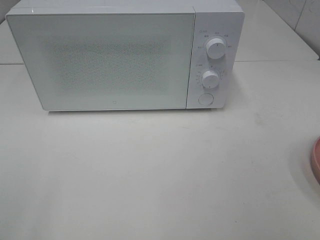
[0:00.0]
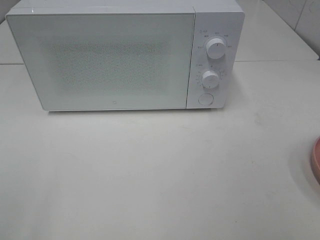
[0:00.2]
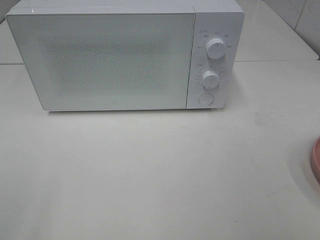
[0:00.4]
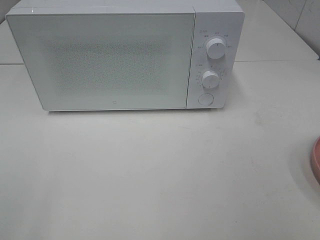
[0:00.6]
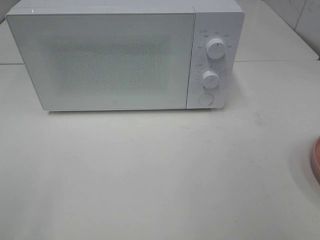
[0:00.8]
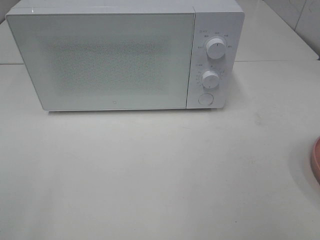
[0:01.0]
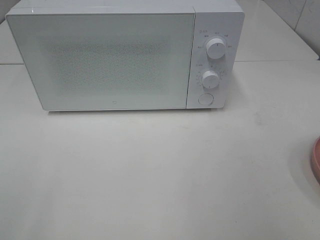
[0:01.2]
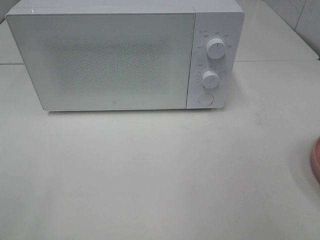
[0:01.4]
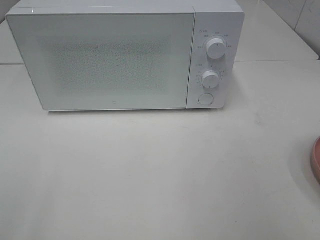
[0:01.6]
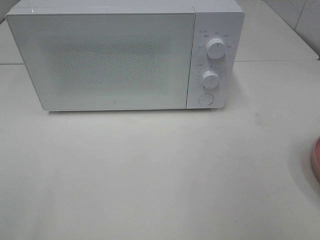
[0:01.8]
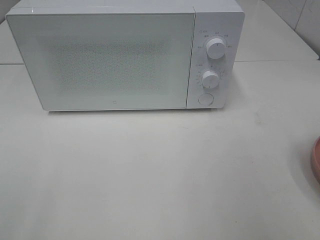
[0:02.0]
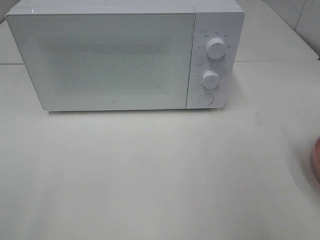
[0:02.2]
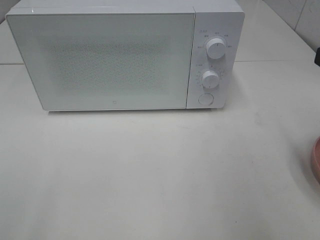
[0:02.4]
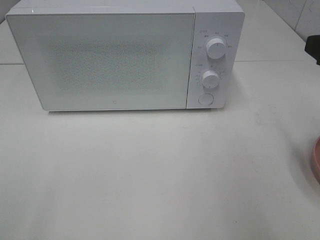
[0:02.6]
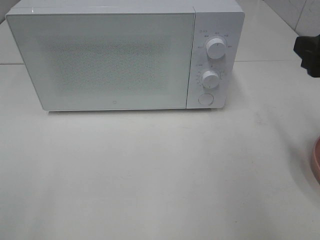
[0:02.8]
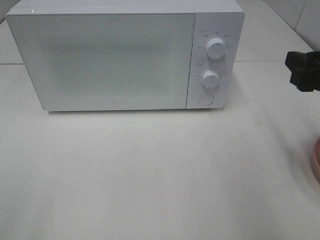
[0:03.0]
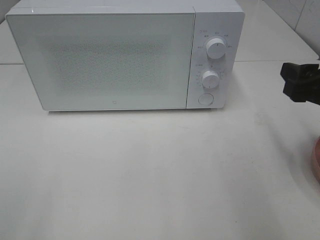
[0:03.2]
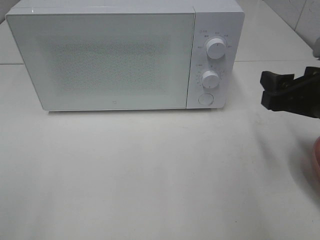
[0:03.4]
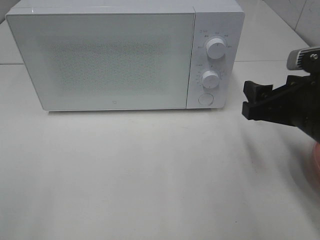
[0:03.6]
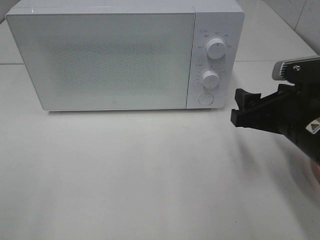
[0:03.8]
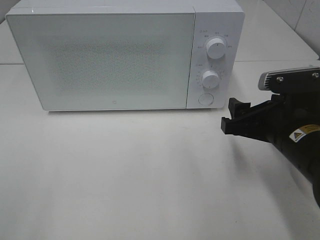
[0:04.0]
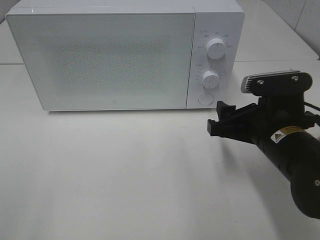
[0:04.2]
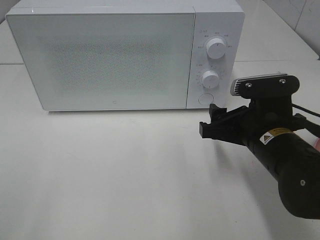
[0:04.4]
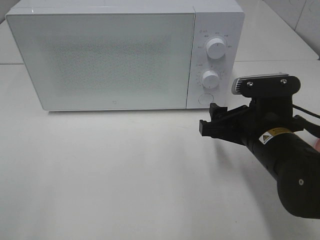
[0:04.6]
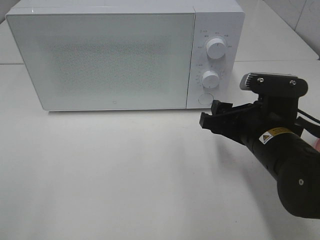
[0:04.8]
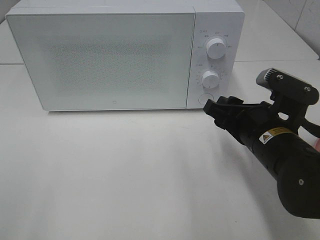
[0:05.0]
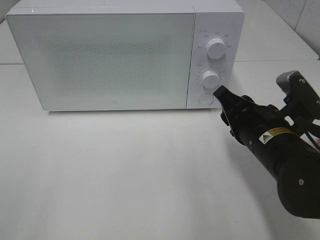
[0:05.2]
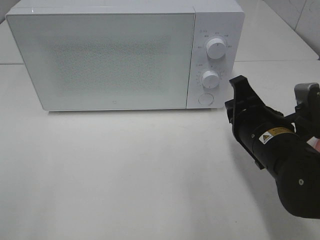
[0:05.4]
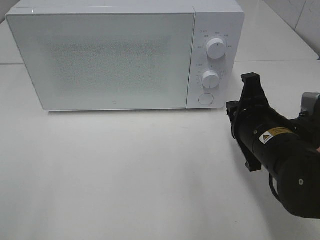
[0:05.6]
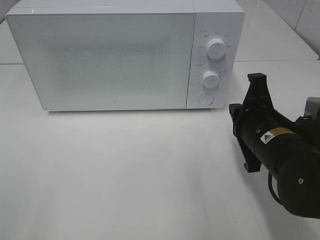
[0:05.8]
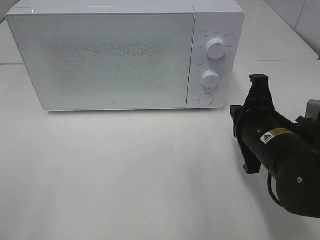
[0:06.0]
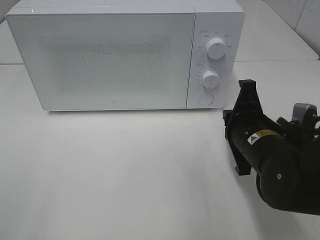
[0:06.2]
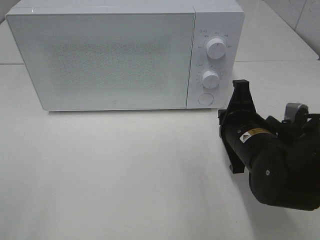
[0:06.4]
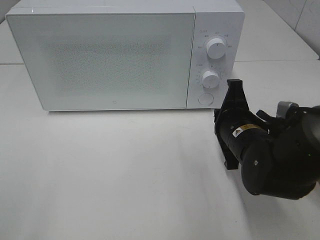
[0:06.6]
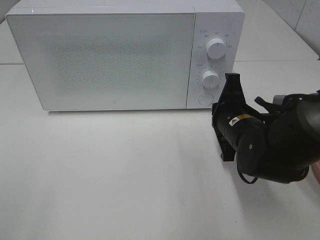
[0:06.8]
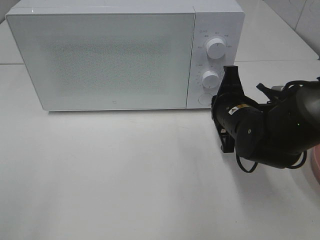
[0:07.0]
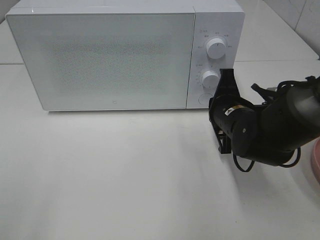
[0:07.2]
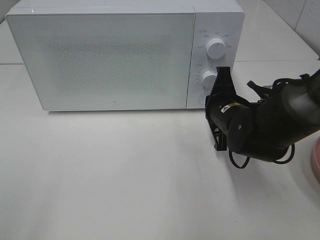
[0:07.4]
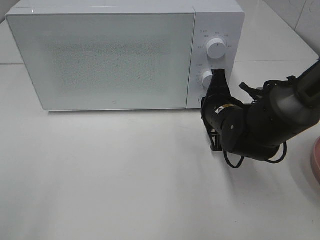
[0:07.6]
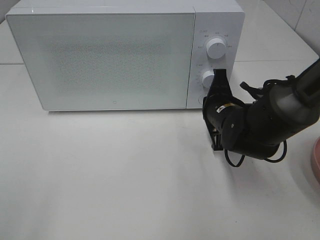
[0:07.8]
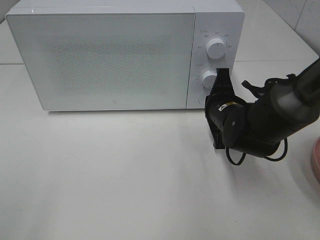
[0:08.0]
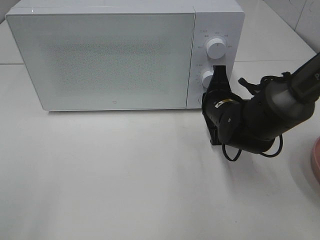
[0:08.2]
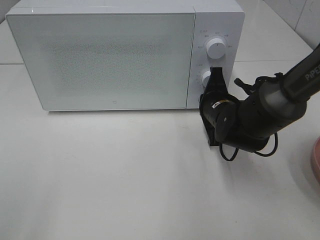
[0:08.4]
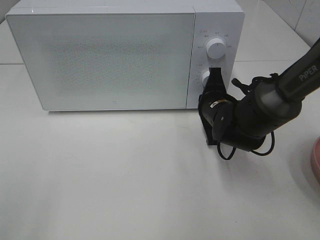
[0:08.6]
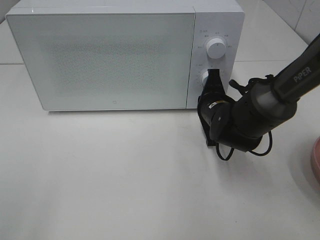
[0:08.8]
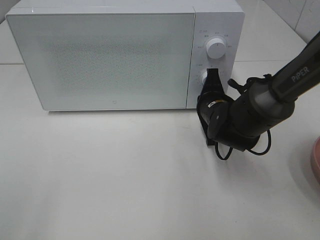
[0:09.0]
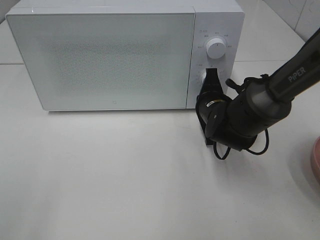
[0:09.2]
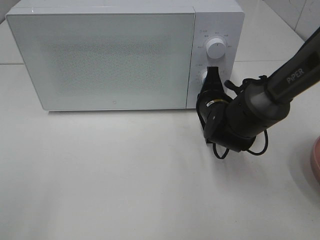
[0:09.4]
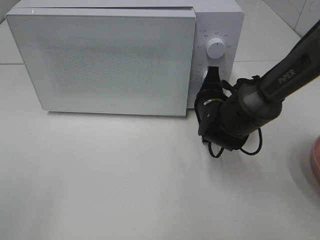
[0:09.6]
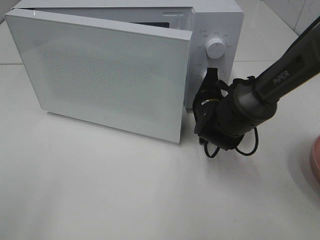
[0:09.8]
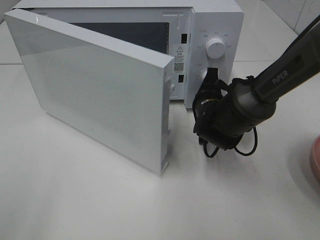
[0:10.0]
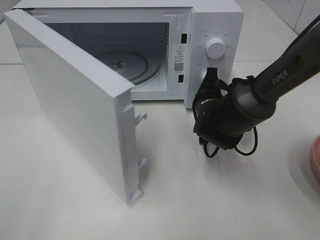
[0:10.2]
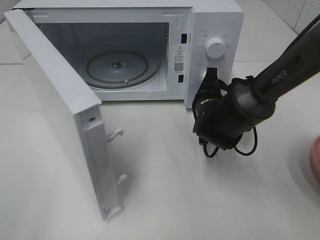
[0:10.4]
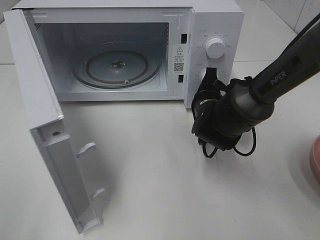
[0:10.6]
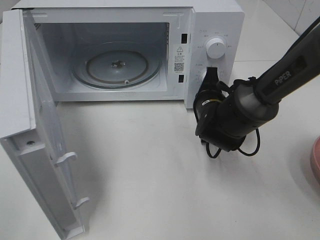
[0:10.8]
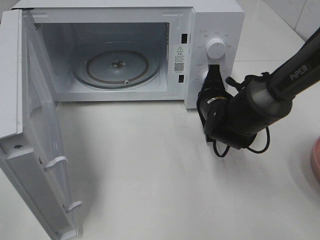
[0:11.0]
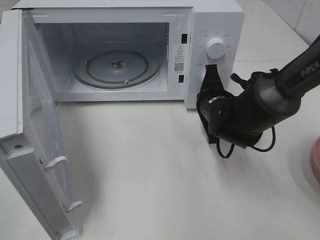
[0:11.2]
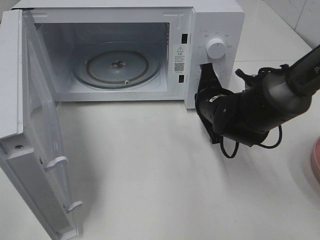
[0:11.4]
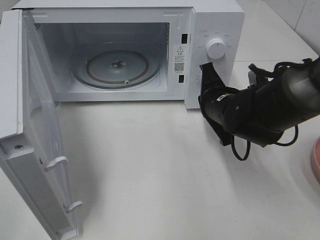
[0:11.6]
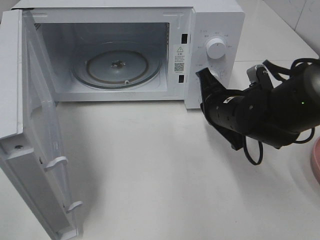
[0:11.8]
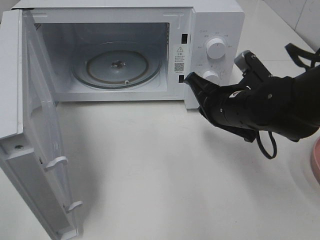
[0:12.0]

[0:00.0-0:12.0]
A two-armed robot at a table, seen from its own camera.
Task of the whole recording: Heat the burger.
Step, 0:00.0 to 0:11.2: Right hand: press the switch.
0:01.6 to 0:03.0: The right gripper heads forward and downward, covering some 15 cm.
0:03.0 to 0:04.4: The right gripper moves to the left and downward, some 15 cm.
0:04.4 to 0:06.0: The right gripper closes.
0:06.0 to 0:07.6: The right gripper is displaced forward by roughly 10 cm.
0:07.6 to 0:09.0: The grippers stay close to where they were, moving slightly.
0:10.4 to 0:12.0: The right gripper goes about 10 cm backward and upward.

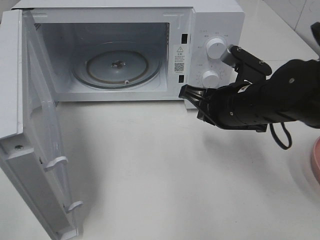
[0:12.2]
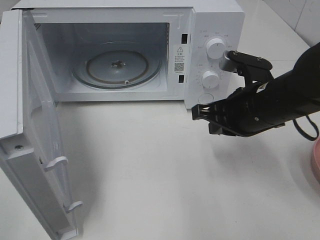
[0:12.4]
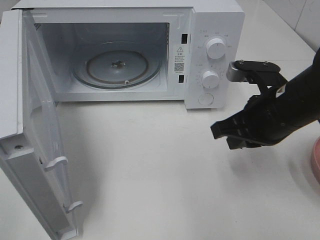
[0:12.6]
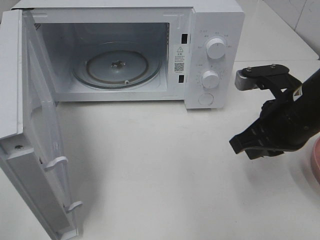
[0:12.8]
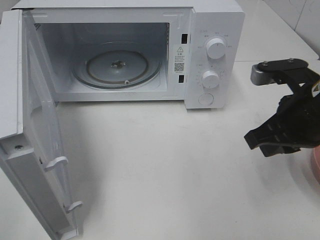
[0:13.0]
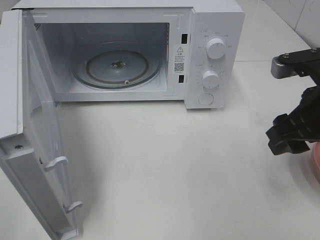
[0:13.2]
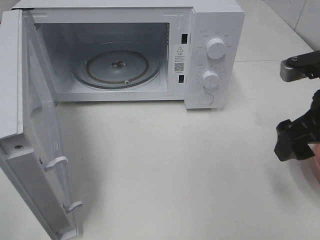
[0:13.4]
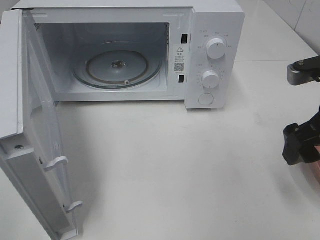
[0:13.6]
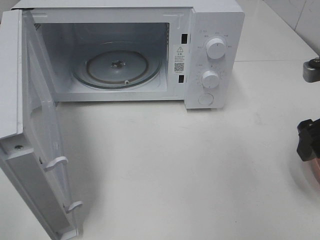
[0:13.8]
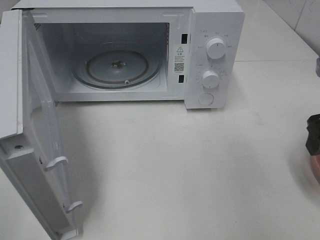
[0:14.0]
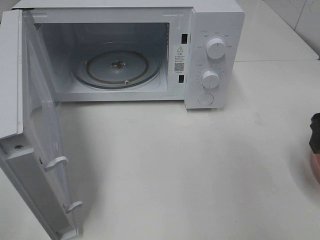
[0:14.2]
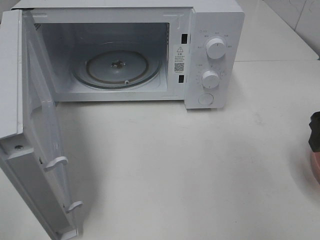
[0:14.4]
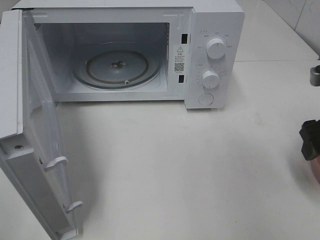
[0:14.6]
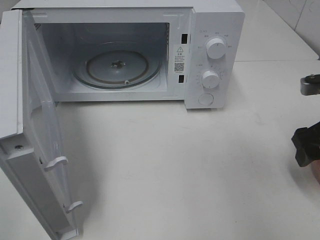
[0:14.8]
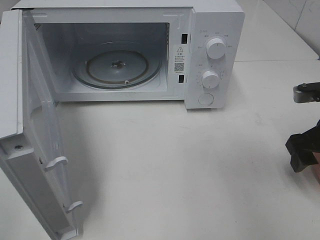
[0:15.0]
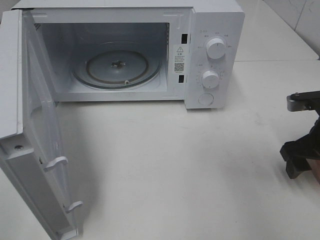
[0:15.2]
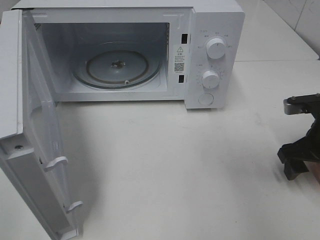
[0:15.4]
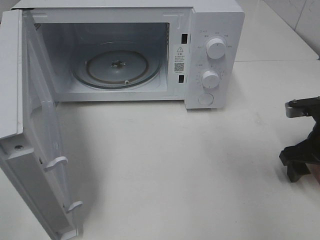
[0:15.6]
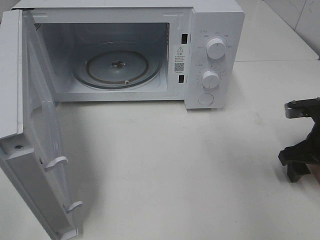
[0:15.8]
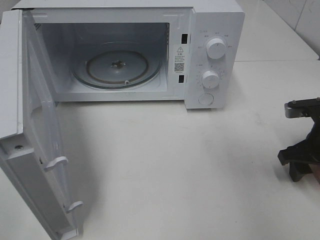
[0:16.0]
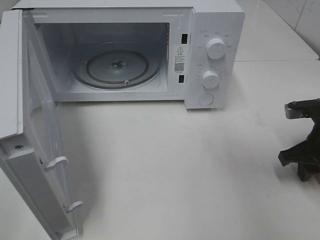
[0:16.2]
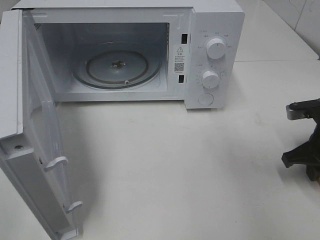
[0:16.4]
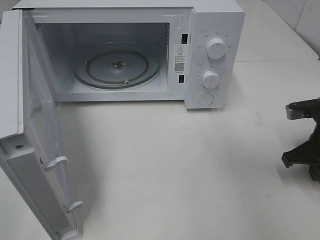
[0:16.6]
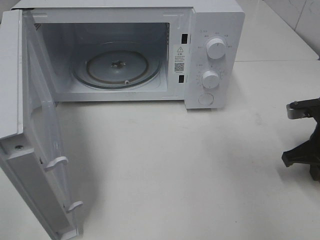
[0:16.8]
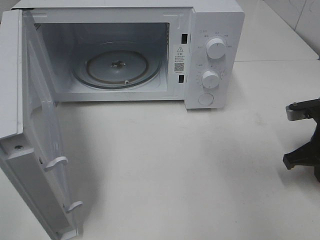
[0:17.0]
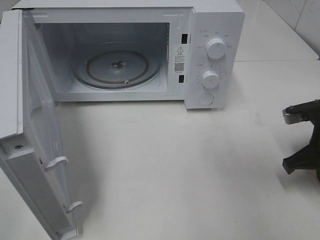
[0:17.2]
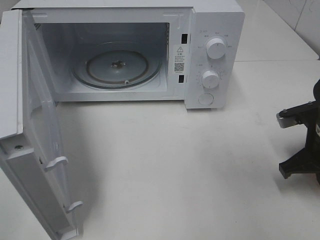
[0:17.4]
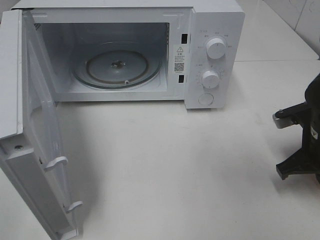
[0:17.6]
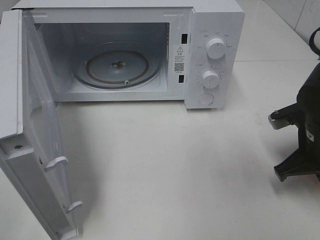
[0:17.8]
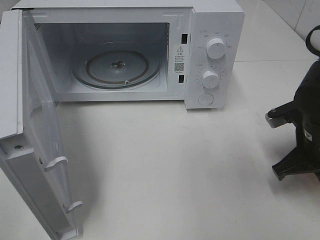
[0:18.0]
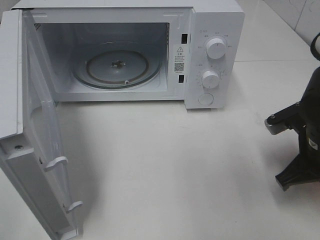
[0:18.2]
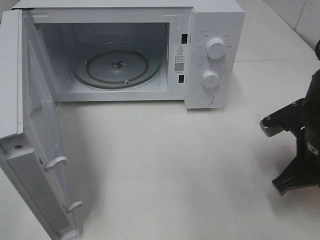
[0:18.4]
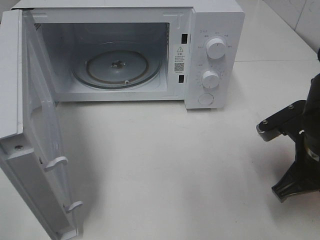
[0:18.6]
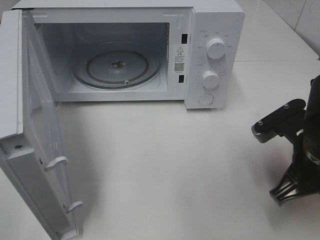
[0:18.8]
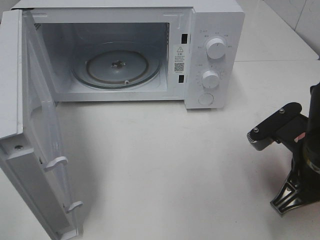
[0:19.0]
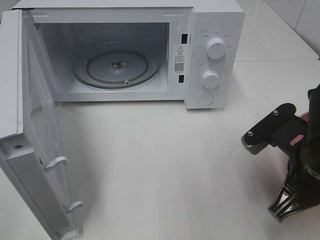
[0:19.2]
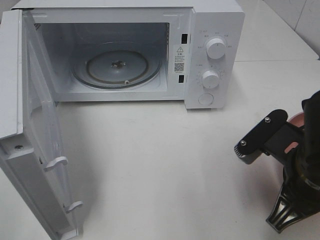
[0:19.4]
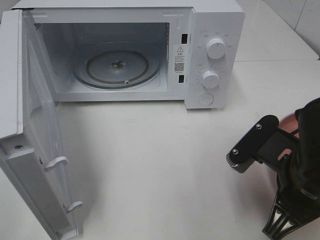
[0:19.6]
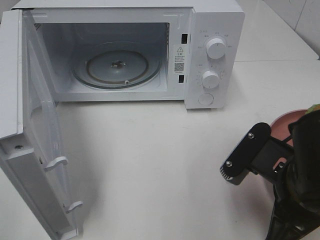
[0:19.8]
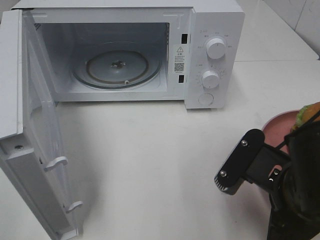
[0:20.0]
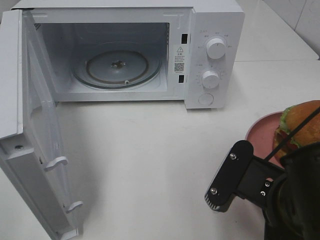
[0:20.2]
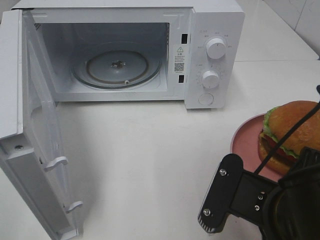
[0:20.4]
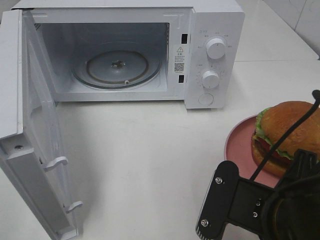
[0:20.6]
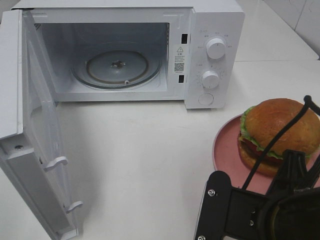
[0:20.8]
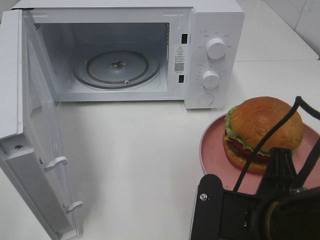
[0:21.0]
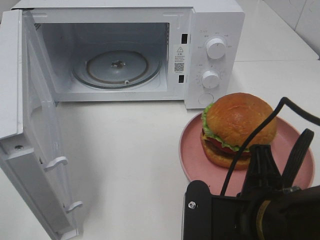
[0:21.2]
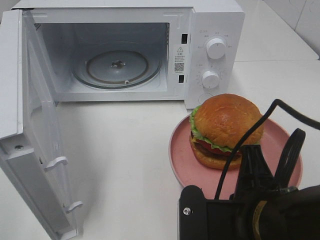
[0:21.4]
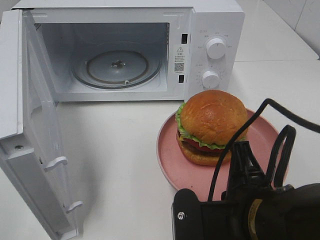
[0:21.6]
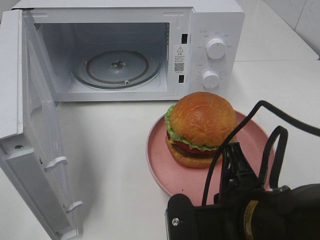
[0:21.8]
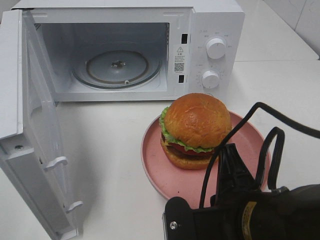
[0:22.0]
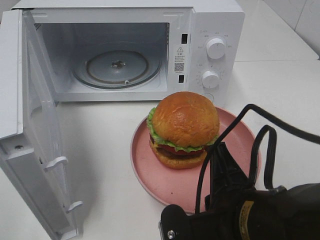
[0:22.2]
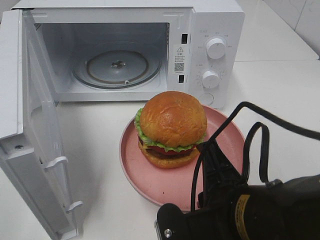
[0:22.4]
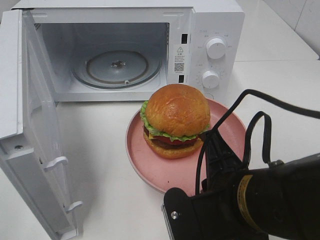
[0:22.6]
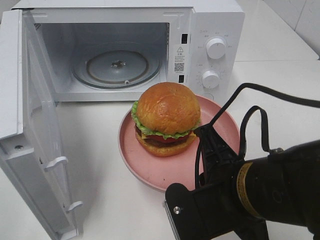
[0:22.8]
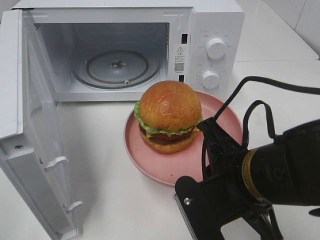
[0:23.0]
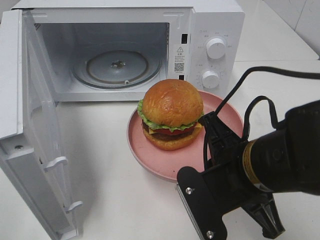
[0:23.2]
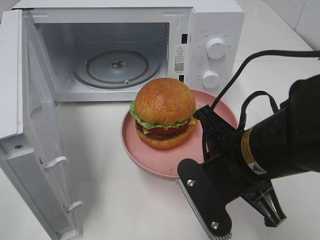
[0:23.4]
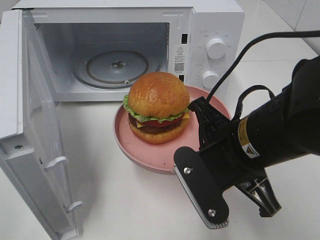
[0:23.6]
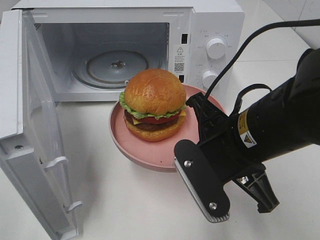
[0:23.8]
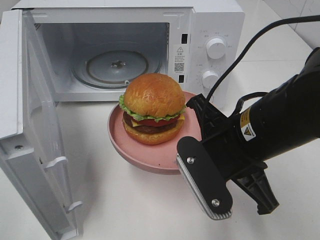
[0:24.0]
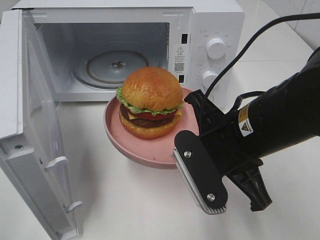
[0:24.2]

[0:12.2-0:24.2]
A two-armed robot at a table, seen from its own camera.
Task of the whole recording: Heat the burger.
Step, 0:12.2 to 0:17.2: Right hand: grab the plate with the hamburger.
0:12.2 to 0:13.8: The right gripper heads to the right, upward and backward, covering about 15 cm, and opens.
0:13.8 to 0:15.2: The right gripper moves downward, about 10 cm.
0:15.2 to 0:16.6: The right gripper closes up.
0:16.6 to 0:18.2: The right gripper is displaced to the left by about 5 cm.
0:18.2 to 0:19.8: The right gripper heads backward and to the left, covering roughly 10 cm.
0:19.8 to 0:21.2: The right gripper moves roughly 5 cm.
0:22.6 to 0:24.2: The right gripper is displaced forward by about 5 cm.
